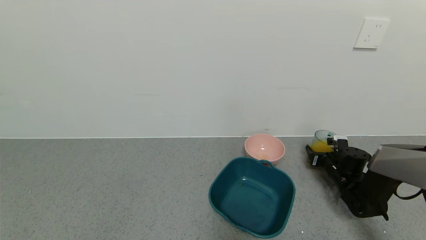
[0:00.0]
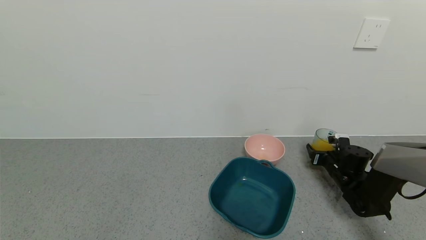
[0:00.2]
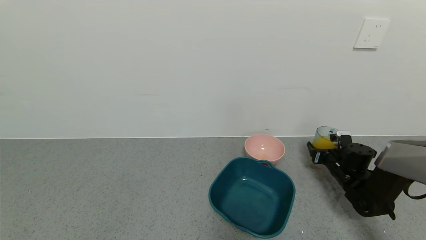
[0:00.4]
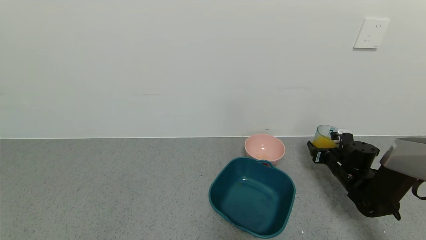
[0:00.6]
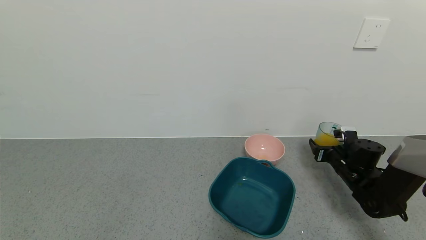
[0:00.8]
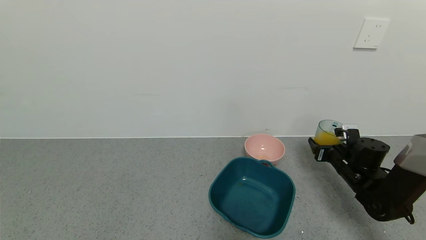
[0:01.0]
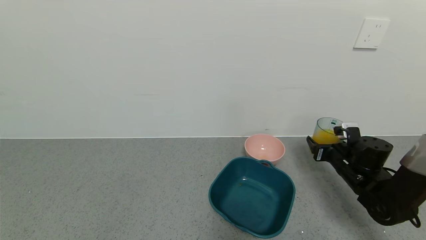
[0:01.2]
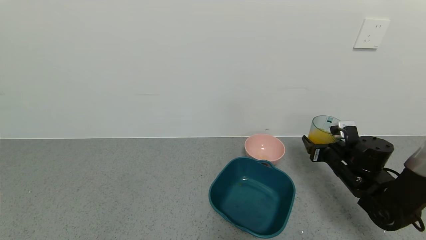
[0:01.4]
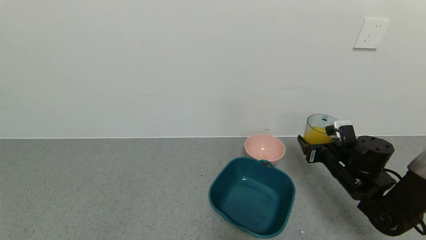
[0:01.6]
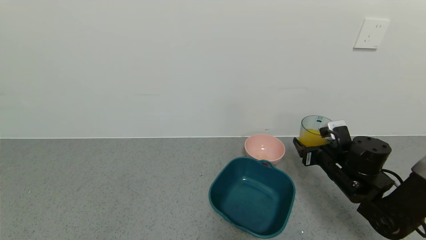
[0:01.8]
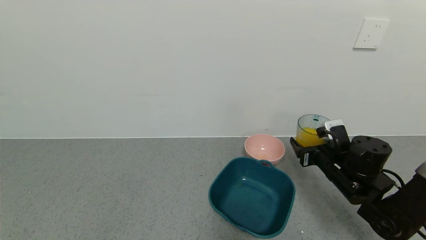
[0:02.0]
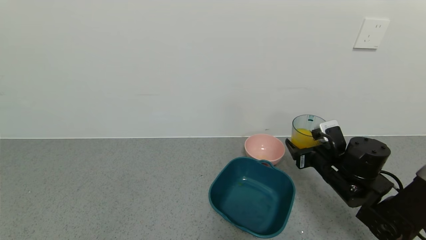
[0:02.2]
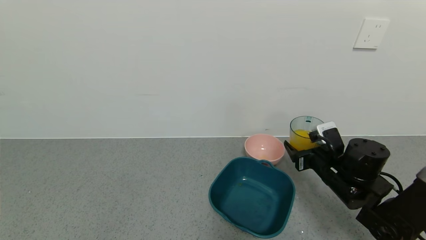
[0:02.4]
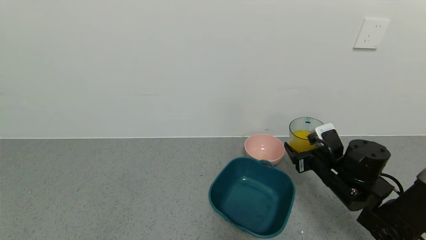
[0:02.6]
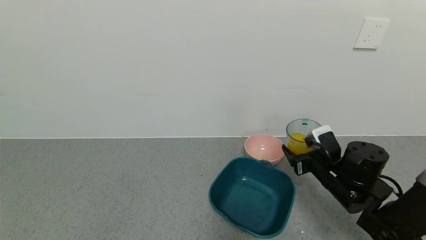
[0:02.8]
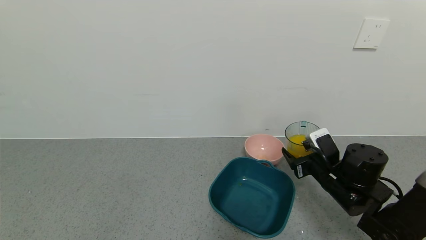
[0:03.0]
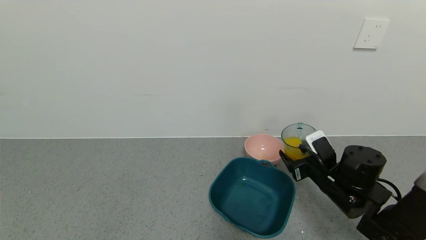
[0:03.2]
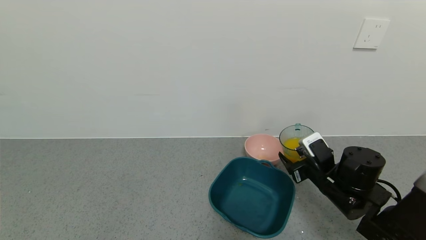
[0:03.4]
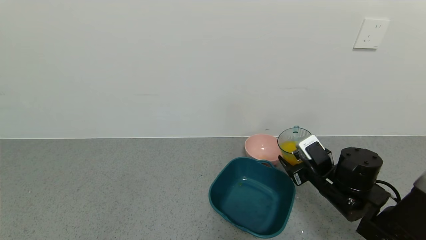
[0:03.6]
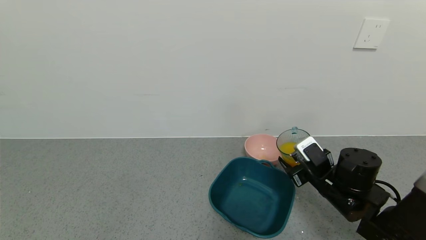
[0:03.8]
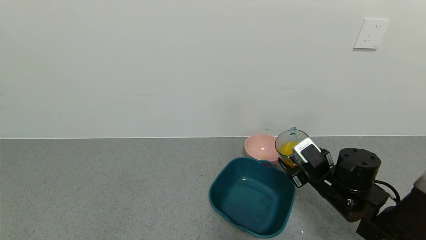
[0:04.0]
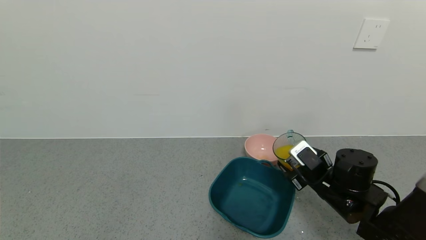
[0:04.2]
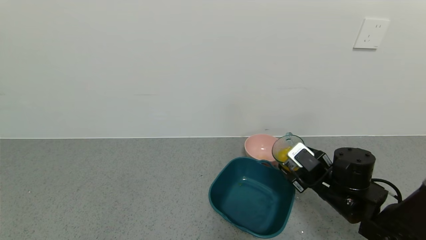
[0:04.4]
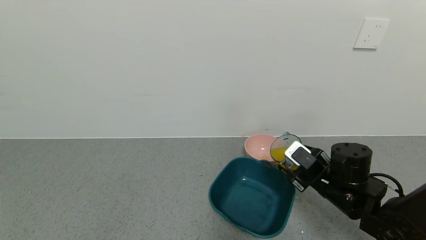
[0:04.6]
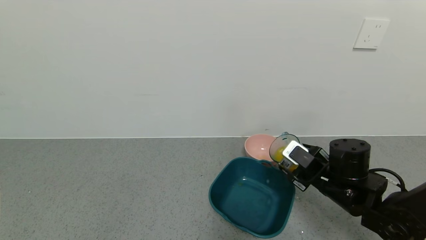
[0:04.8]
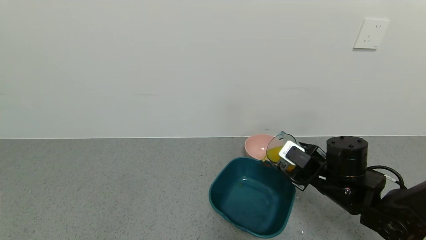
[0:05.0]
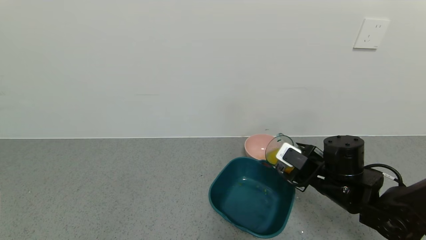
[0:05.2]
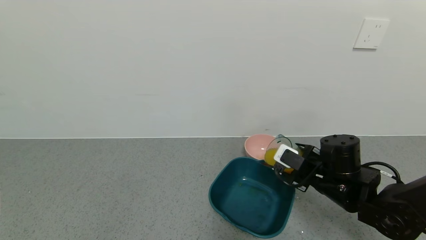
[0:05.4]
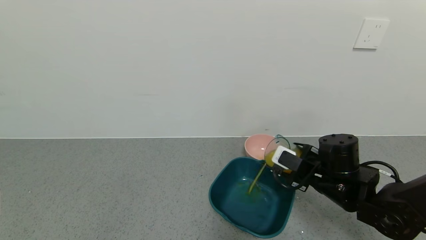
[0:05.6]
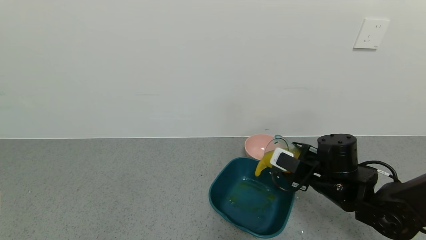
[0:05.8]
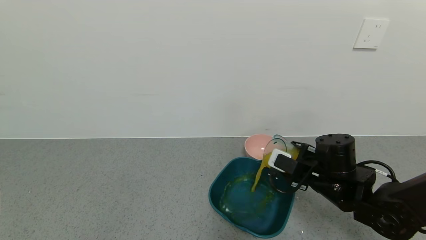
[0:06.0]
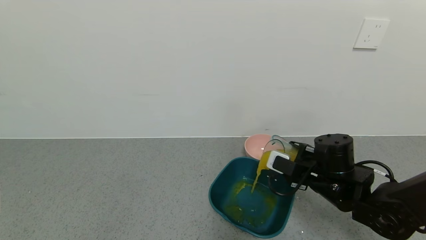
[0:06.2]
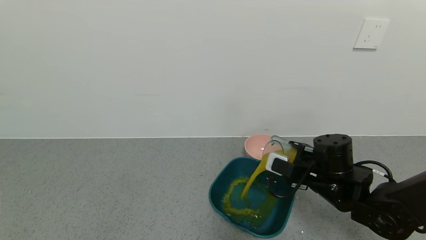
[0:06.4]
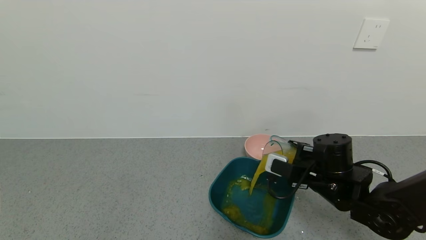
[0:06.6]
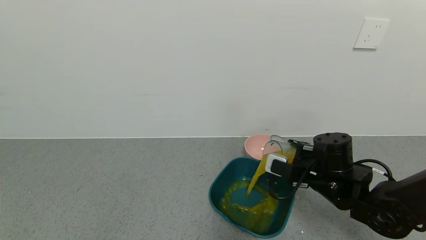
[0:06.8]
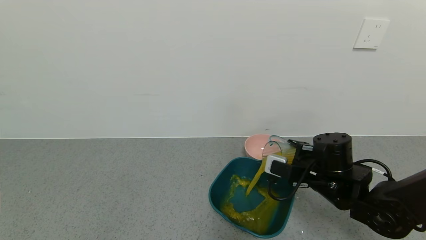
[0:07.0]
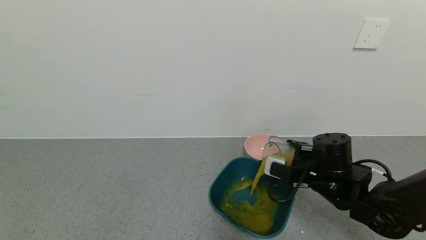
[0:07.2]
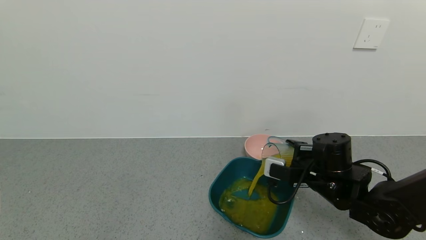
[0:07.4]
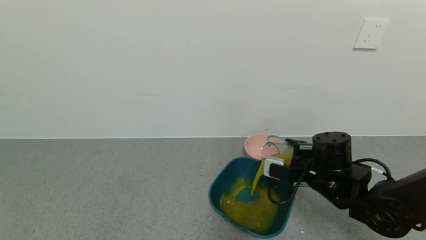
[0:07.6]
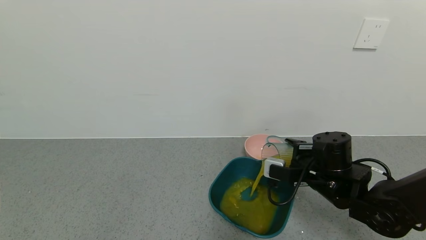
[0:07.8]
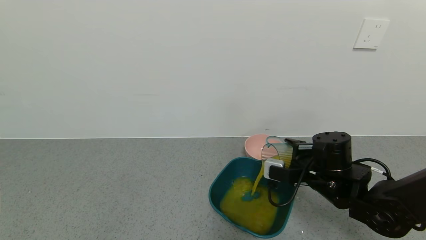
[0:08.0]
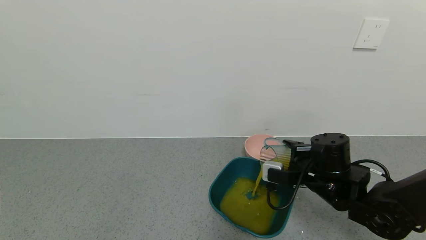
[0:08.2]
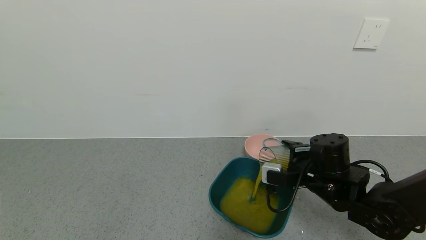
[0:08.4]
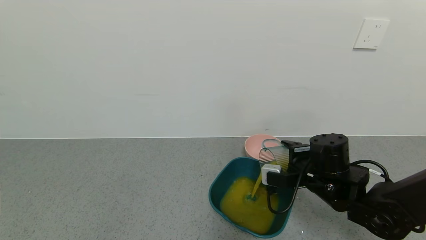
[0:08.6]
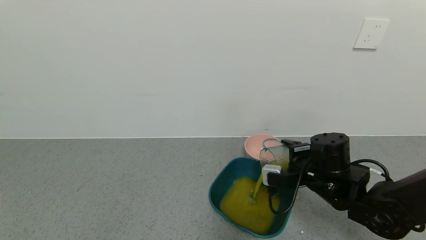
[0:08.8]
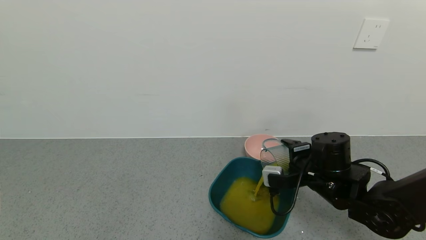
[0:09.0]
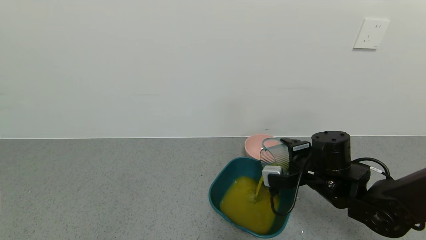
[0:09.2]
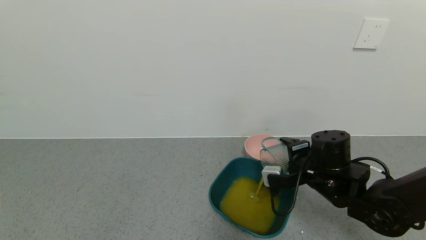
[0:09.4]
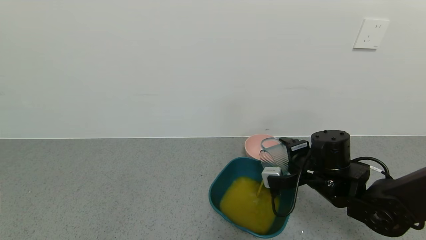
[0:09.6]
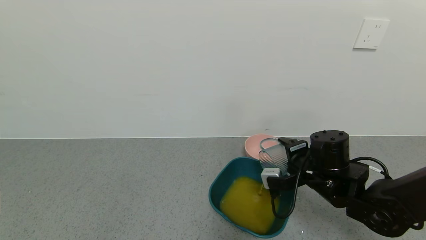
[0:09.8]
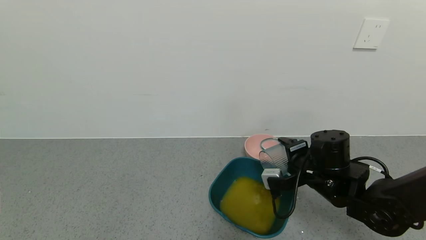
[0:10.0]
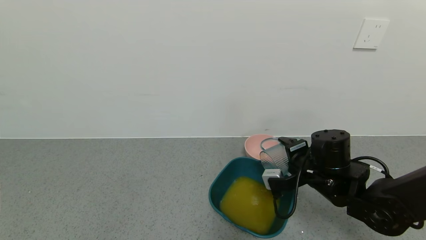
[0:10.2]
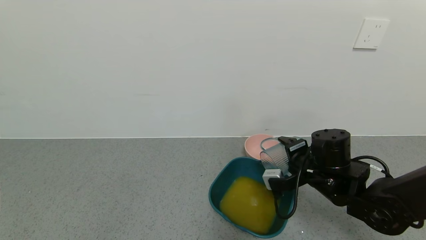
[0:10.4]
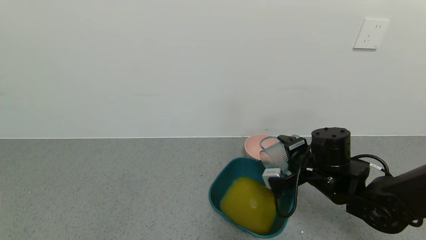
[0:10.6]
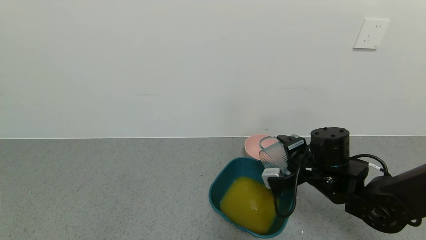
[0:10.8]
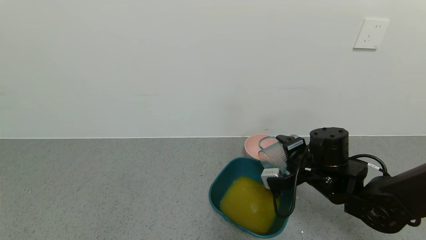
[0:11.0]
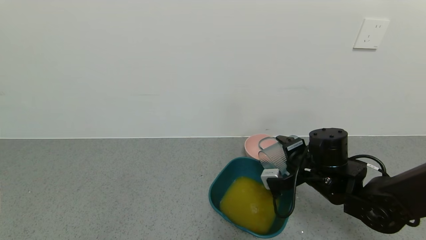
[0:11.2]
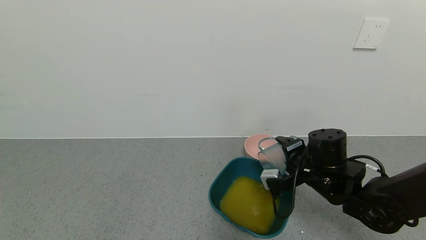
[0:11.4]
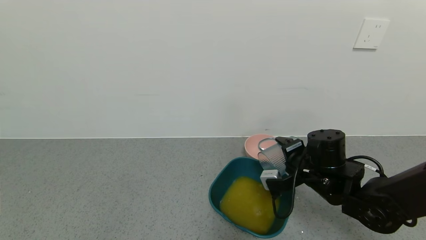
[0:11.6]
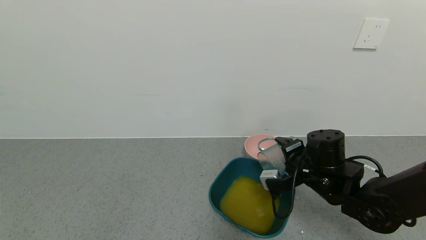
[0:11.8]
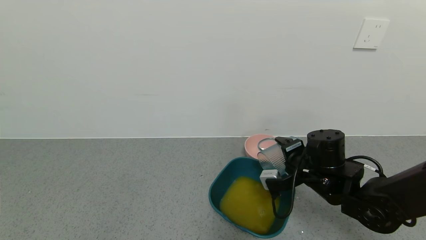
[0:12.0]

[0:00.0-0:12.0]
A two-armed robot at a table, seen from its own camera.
Task of the whole recording: use a gripper to pick up the cup and pour the liquid into a bowl or tray.
0:00.0 to 0:01.6: The right gripper travels upward, backward and to the left by some 15 cm.
0:01.6 to 0:03.0: The right gripper moves approximately 5 cm.
0:06.0 to 0:07.6: There are only small adjustments of the grippers.
0:07.6 to 0:09.0: The grippers stay close to where they were, moving slightly.
0:09.0 to 0:10.4: The grippers move only a little.
0:10.4 to 0:12.0: Both grippers stay about where they are.

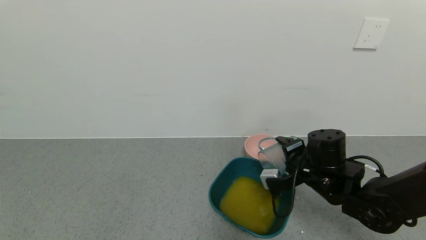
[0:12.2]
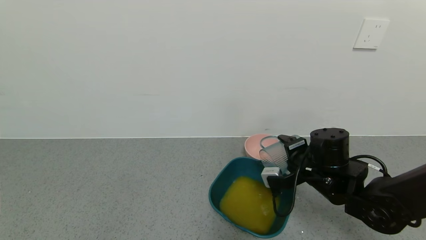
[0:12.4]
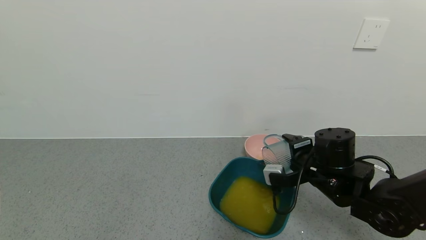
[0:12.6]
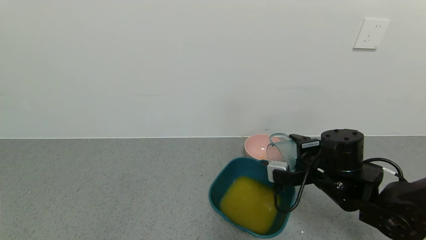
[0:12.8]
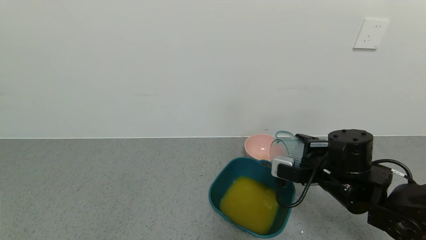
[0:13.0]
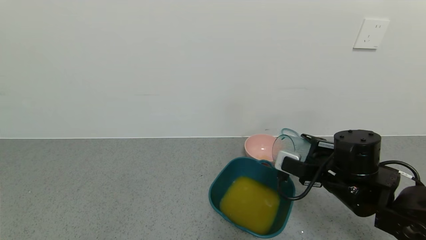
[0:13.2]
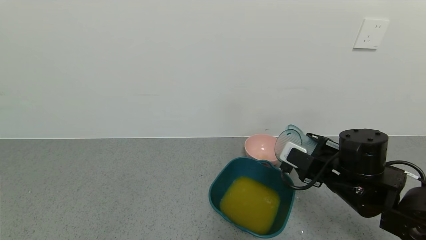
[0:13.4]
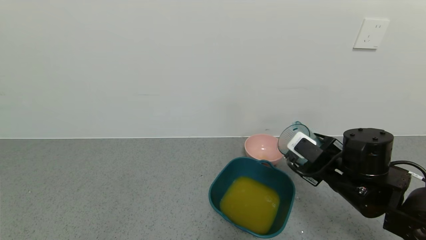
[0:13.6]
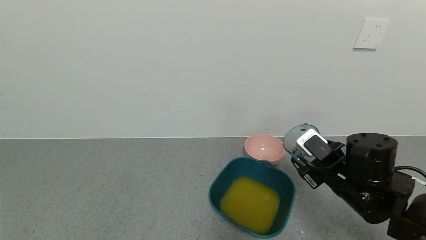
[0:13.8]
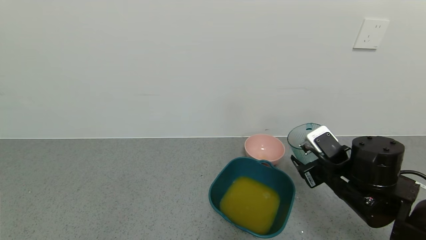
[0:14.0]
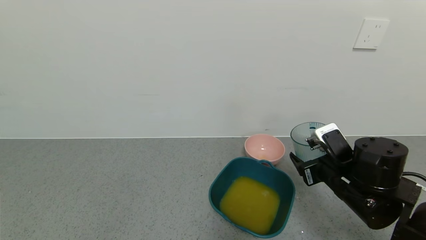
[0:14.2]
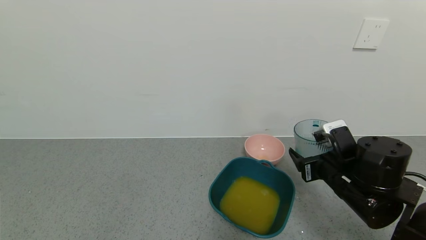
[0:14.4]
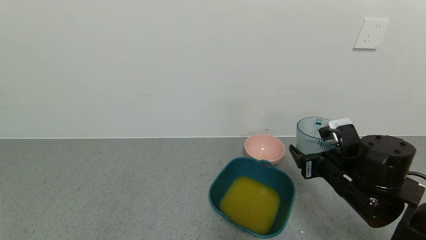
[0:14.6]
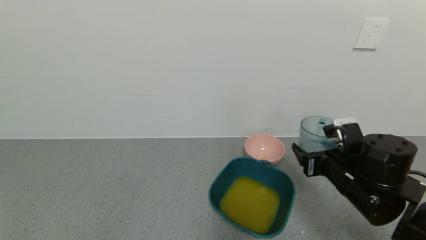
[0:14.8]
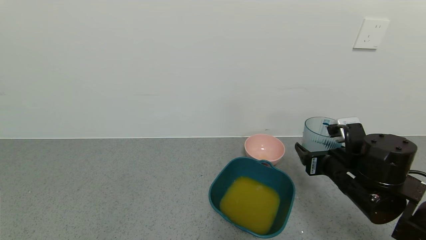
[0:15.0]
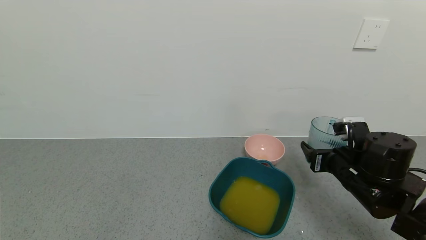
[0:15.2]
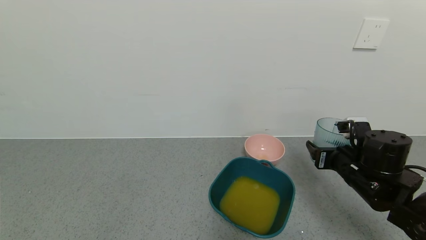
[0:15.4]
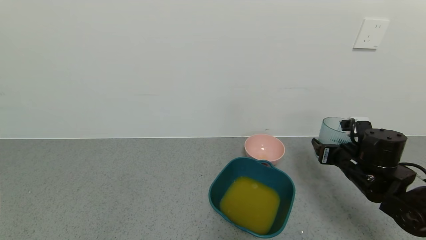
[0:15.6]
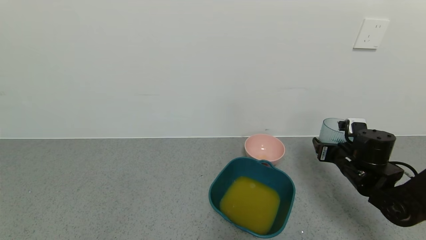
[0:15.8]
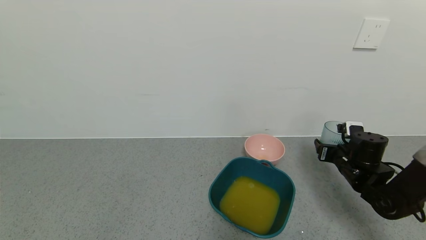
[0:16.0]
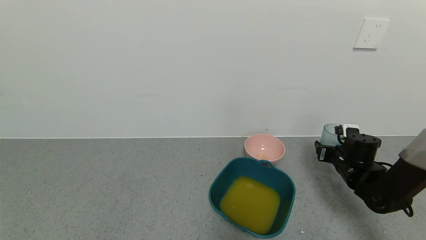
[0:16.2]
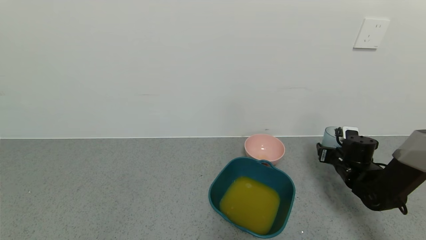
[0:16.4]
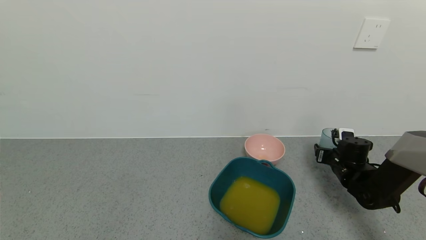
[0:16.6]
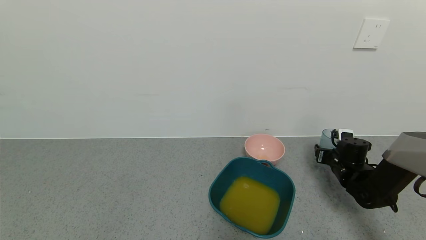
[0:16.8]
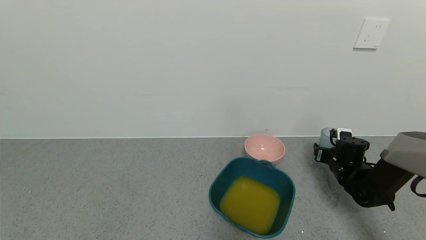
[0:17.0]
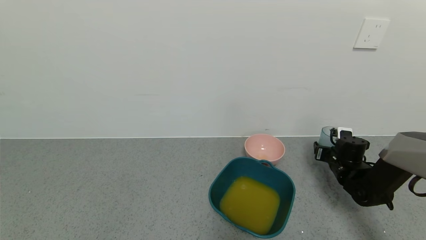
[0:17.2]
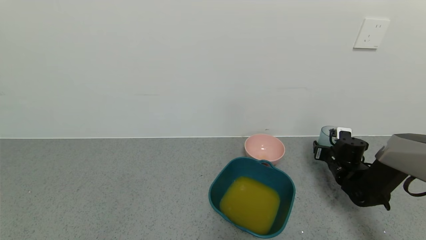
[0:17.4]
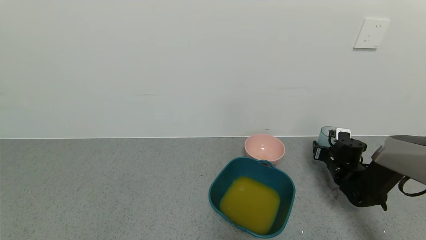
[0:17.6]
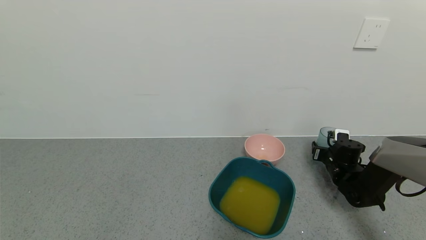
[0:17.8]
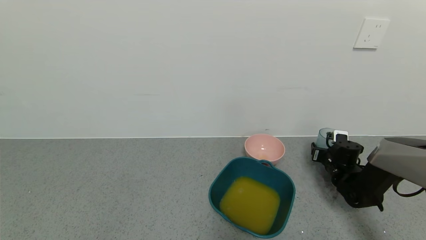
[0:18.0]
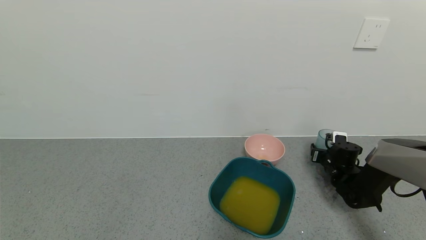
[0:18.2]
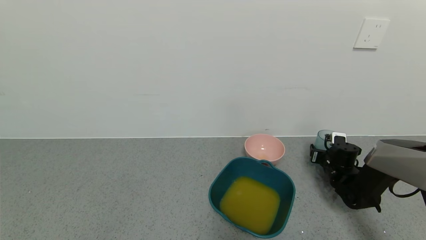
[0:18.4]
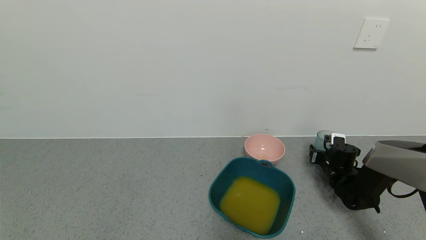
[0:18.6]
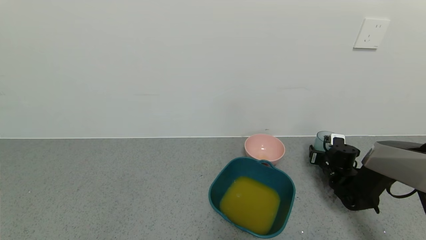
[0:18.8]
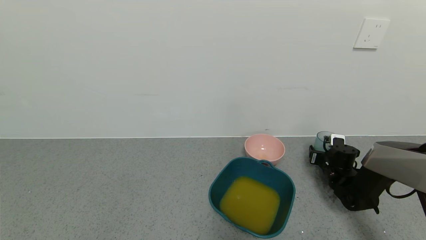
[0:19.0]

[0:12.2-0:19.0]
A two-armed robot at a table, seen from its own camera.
Task of the whole recording: use a gripper to pick up the cup and pour the liquid into a bowl or tray.
0:12.2 to 0:13.6: The right gripper ends up approximately 5 cm from where it was.
0:15.0 to 0:16.2: The right gripper is displaced forward, to the right and downward by approximately 15 cm.
0:16.2 to 0:17.6: The right gripper ends up approximately 5 cm from where it was.
0:17.6 to 0:19.0: The grippers stay close to where they were, moving slightly.
